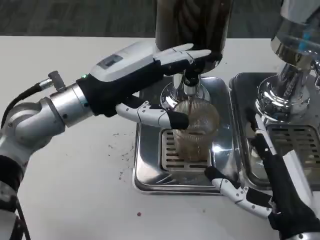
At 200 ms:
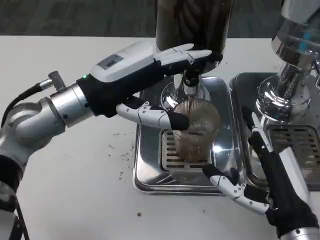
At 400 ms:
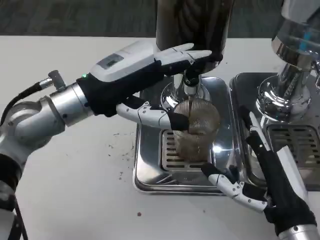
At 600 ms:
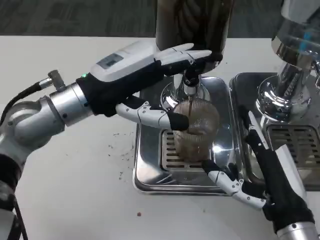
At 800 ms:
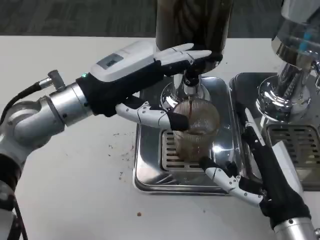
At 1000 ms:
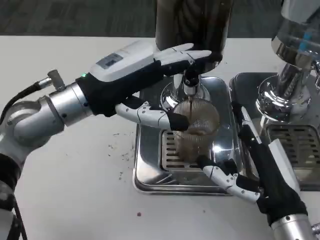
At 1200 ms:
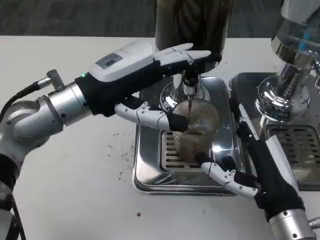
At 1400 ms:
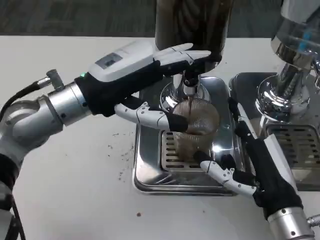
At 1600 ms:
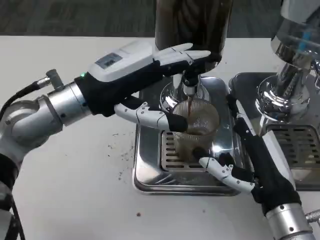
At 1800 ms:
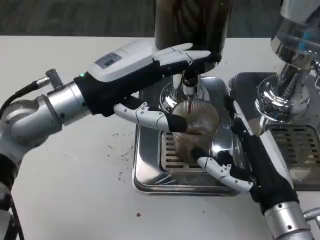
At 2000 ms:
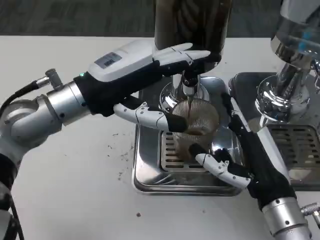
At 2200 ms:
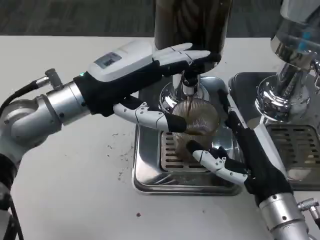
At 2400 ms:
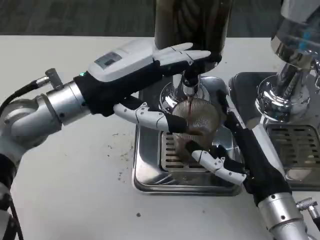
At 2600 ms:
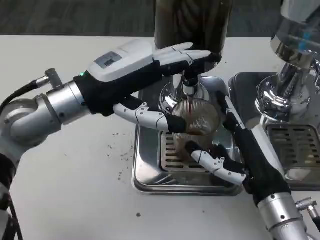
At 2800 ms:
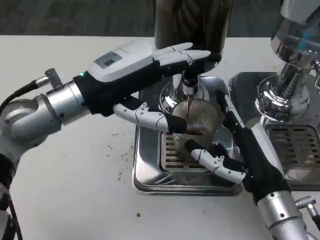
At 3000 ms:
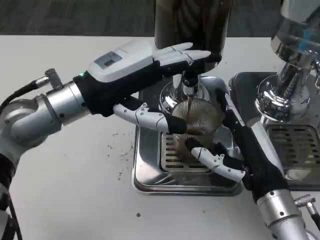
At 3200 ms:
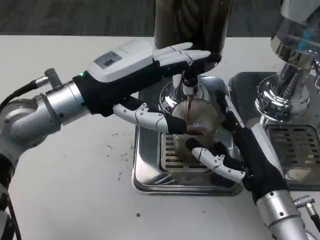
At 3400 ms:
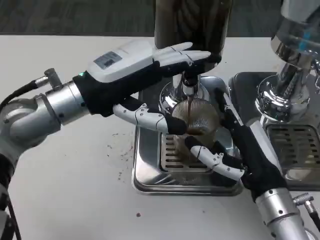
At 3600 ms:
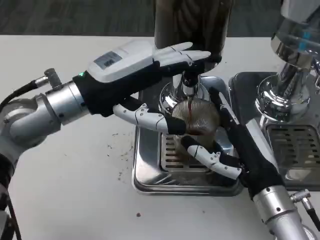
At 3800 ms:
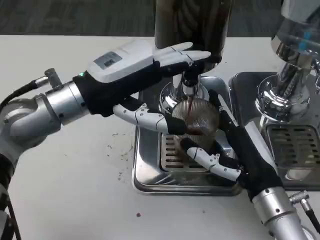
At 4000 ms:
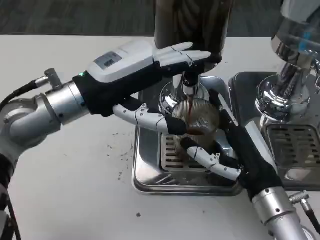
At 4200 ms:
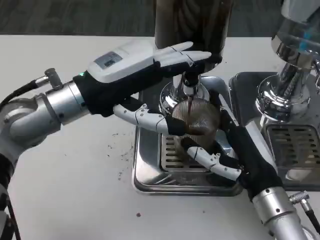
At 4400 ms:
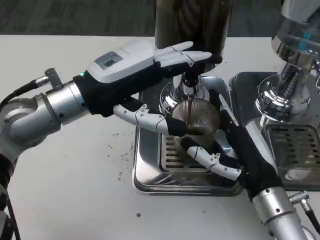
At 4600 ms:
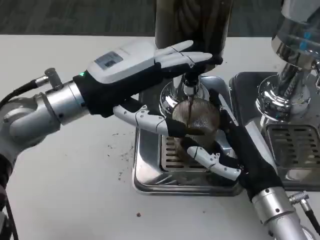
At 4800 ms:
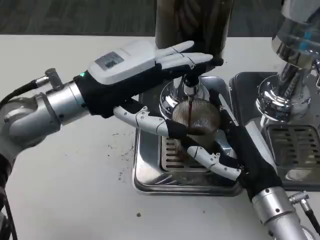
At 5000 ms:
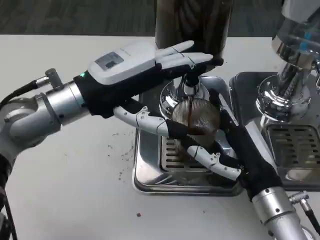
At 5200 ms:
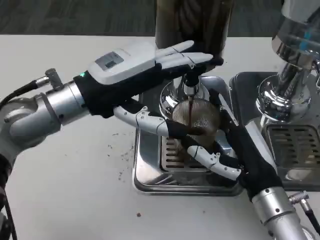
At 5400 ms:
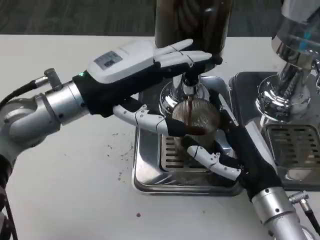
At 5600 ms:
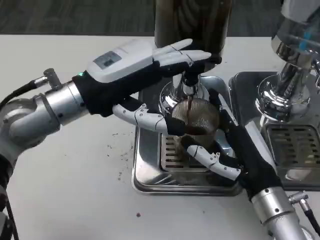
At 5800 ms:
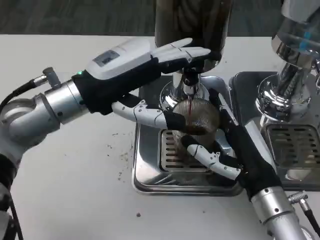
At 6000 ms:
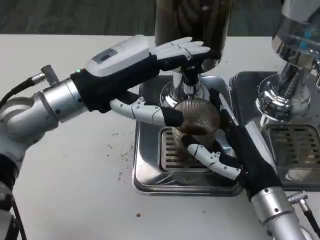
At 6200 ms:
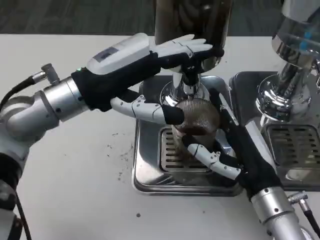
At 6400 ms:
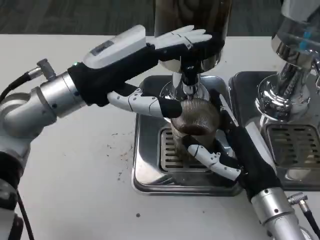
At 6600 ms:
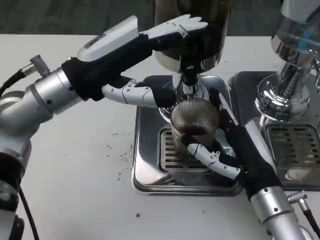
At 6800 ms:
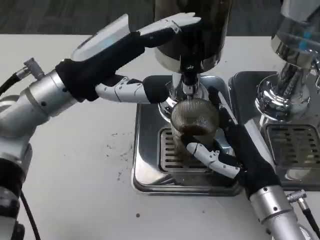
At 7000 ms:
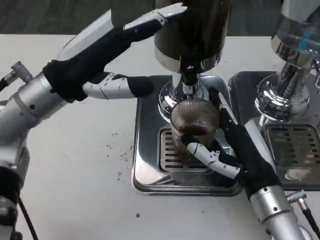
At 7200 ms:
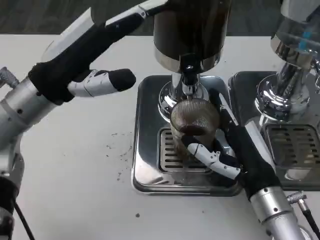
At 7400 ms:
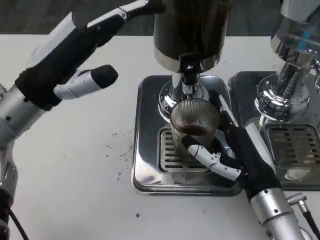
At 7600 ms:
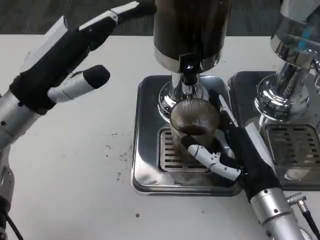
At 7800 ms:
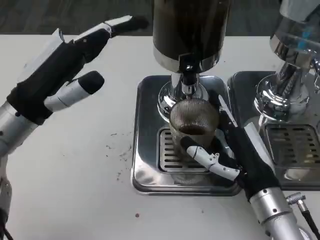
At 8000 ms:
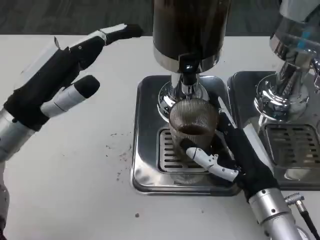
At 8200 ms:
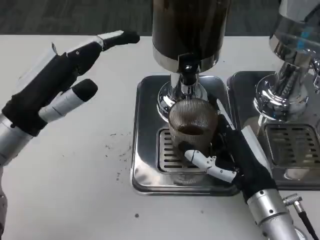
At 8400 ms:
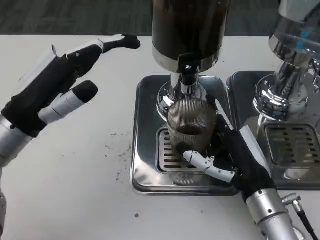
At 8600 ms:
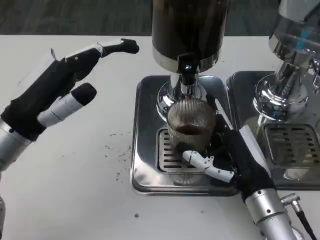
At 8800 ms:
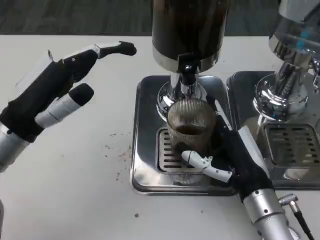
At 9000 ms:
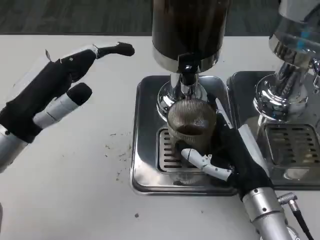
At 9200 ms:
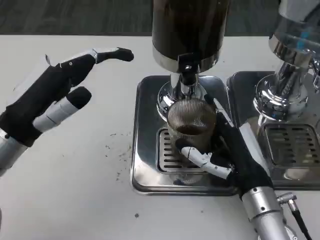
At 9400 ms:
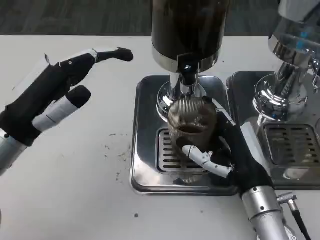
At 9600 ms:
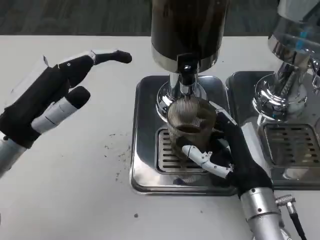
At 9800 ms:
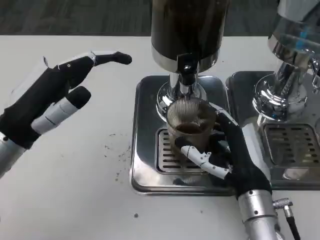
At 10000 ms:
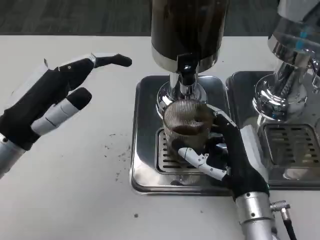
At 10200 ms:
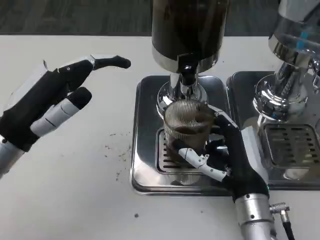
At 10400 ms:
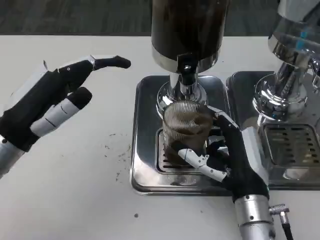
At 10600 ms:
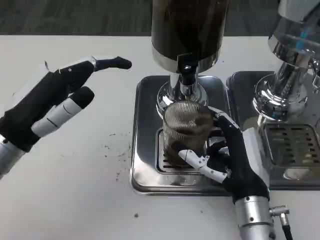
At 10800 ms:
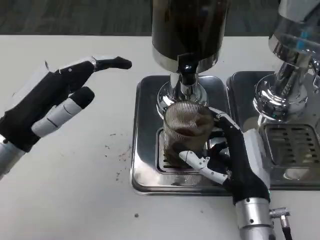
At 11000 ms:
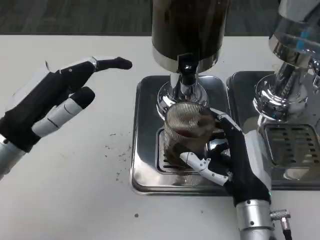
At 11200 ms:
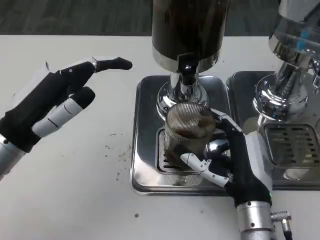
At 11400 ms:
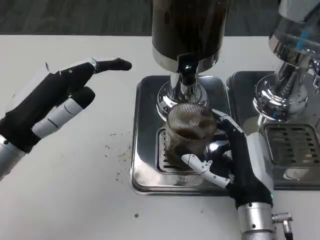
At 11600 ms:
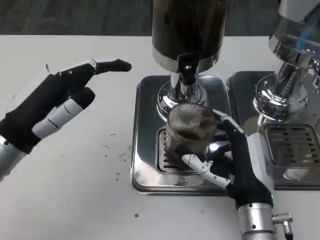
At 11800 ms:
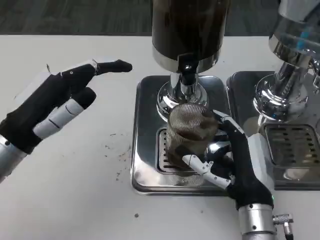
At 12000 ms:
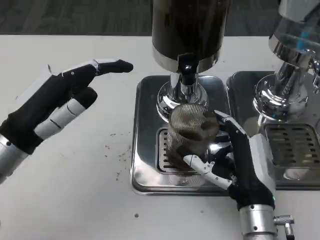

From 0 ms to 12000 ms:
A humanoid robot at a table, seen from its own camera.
Task of the whole recording: Grasp the cup under the faucet to collect the drink, then remove the cup.
From 0 ms to 1600 ms: The hands move only a little.
From 1600 ms to 3000 ms: The hands make only small movements.
From 3000 ms to 4400 ms: Both hands stay put.
From 4400 ms to 6000 ms: The hands stay close to where they were, moving slightly.
From 6000 ms to 7600 ms: The left hand changes place by about 5 cm.
From 9000 ms to 10400 ms: There are only small adjustments of the hands.
From 10400 ms to 12000 ms: Both hands stay put.

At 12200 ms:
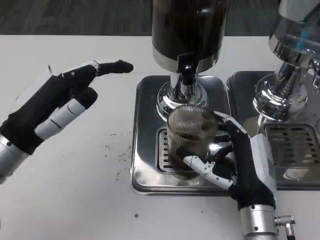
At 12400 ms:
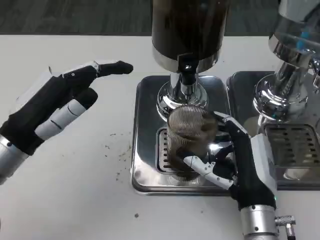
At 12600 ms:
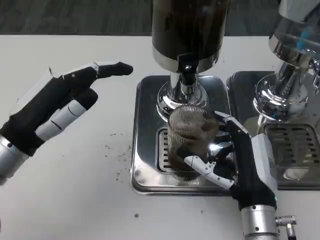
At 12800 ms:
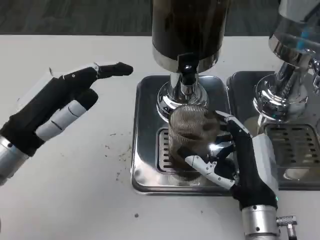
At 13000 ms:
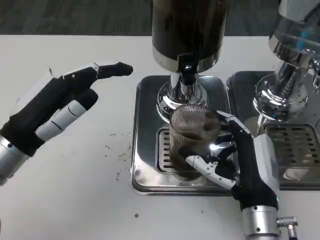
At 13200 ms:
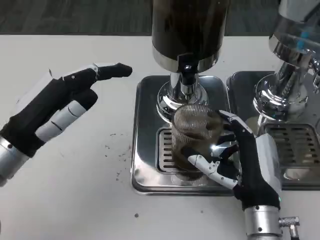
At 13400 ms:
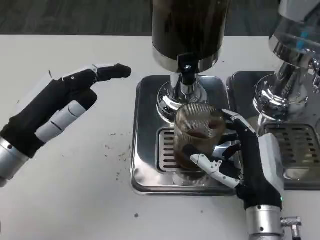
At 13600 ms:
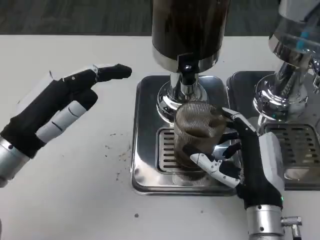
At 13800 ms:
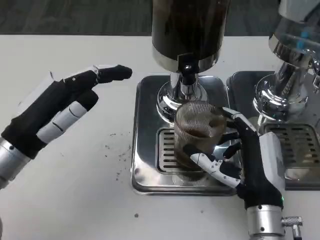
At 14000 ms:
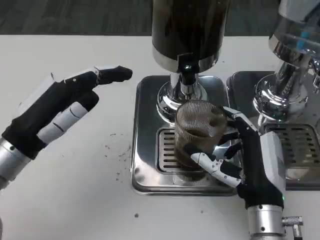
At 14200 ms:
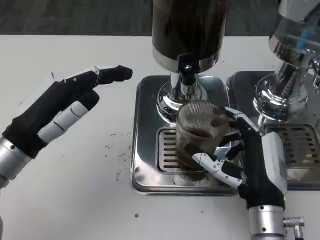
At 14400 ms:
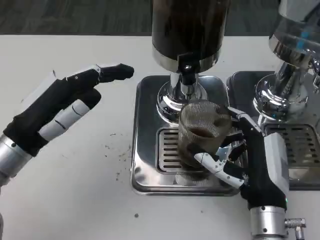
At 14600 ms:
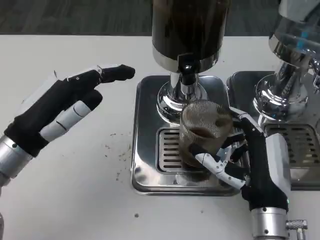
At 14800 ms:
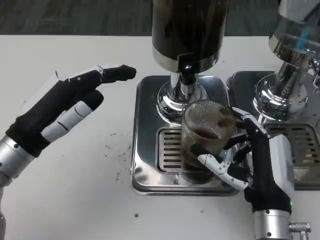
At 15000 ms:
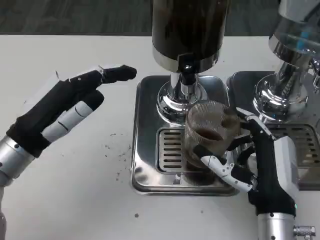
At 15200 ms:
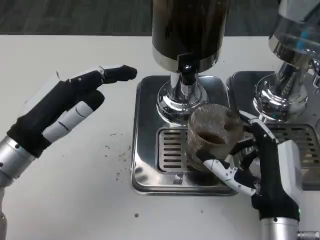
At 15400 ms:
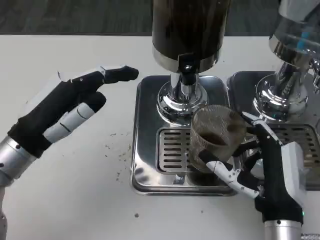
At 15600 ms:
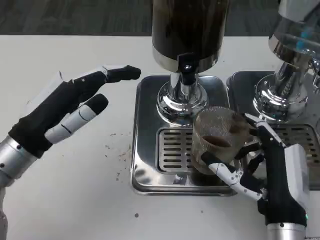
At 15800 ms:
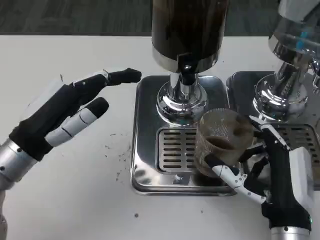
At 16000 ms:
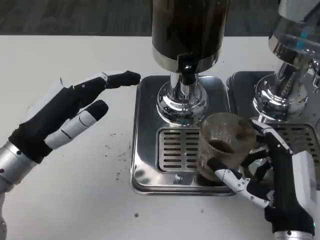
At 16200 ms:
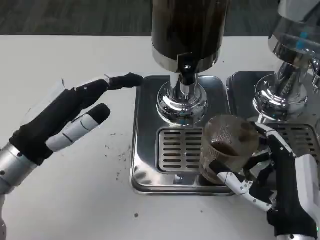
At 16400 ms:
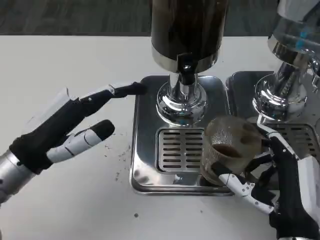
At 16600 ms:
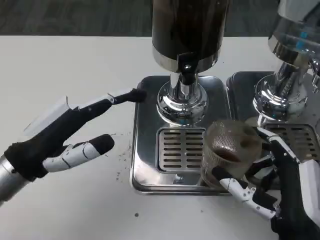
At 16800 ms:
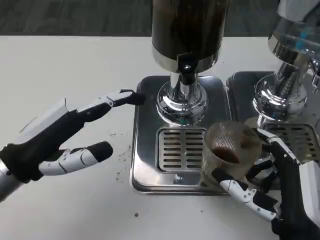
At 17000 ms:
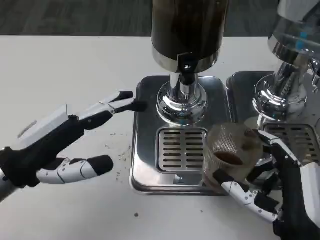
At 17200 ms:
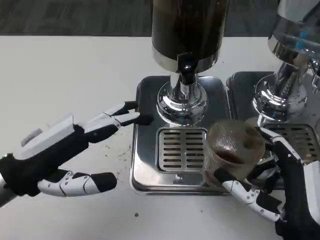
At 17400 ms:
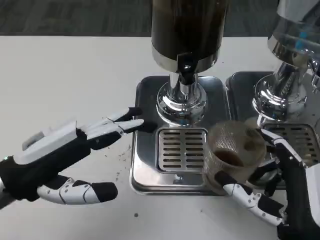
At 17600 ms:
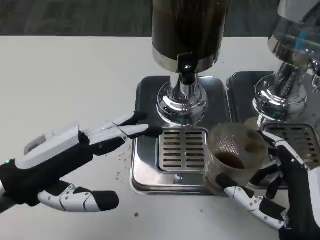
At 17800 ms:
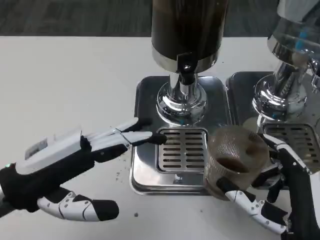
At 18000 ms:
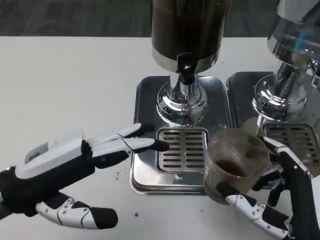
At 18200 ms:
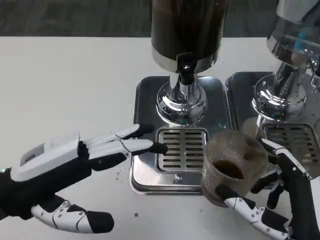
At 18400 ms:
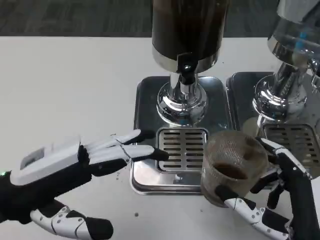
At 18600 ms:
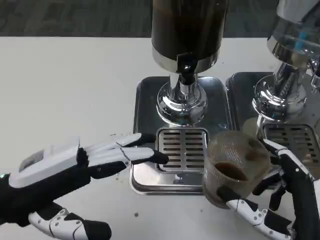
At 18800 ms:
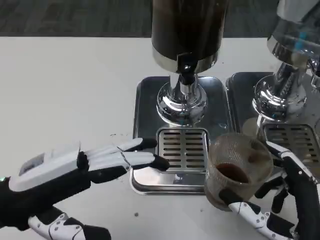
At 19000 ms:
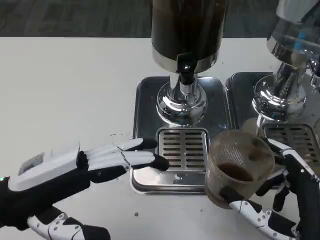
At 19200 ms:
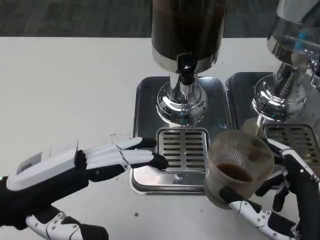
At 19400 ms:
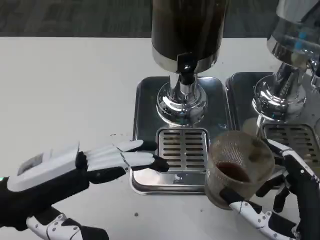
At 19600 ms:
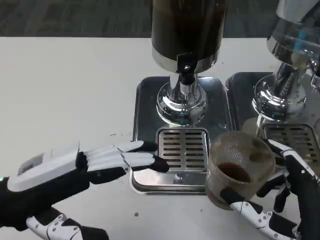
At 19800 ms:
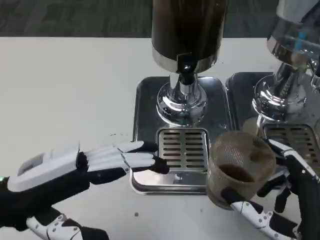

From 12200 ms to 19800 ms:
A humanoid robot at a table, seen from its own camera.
Task of the whole recording: Grasp the cup under the faucet to collect the drink, then remove the cup.
From 12200 ms to 13800 ms: Neither hand changes place.
From 13800 ms to 15200 ms: There are only small adjustments of the hands.
From 18200 ms to 19800 ms: Both hands stay put.
